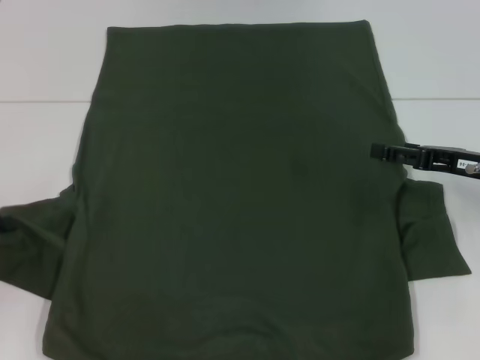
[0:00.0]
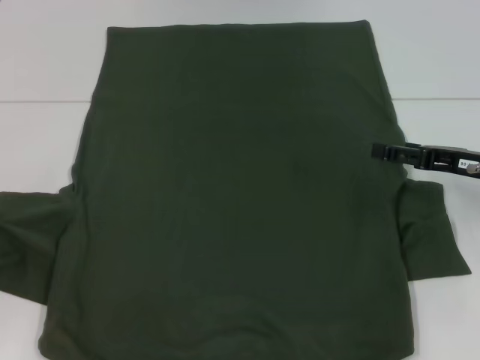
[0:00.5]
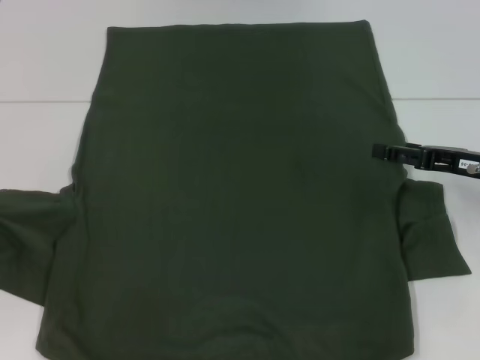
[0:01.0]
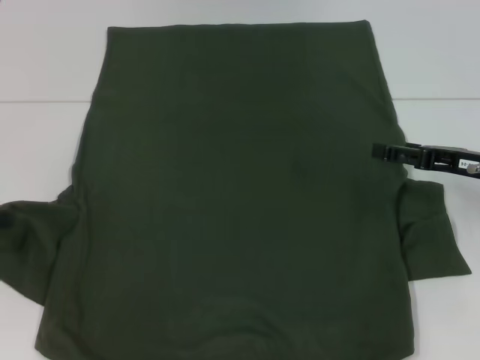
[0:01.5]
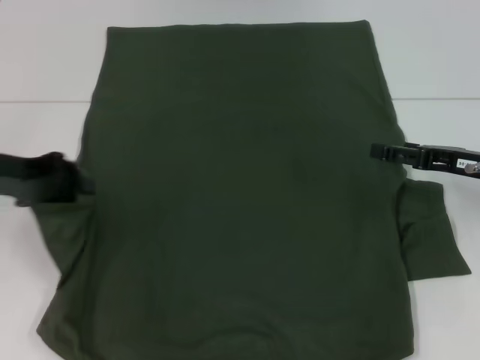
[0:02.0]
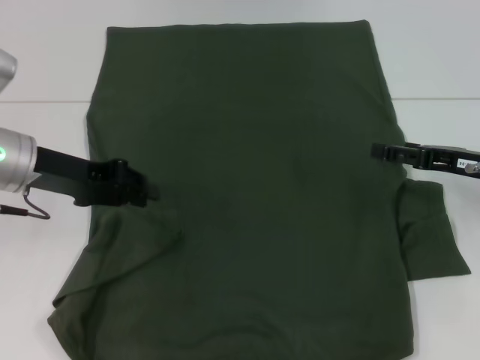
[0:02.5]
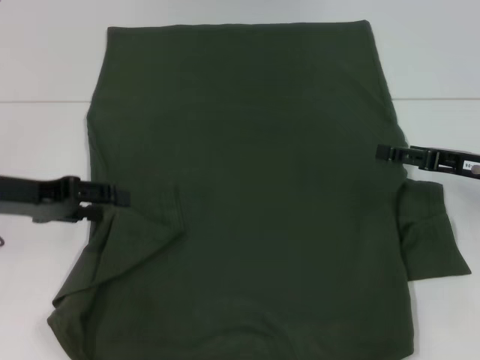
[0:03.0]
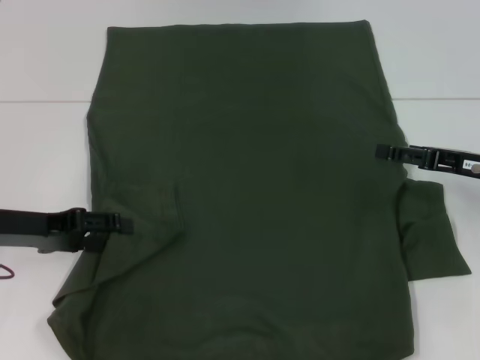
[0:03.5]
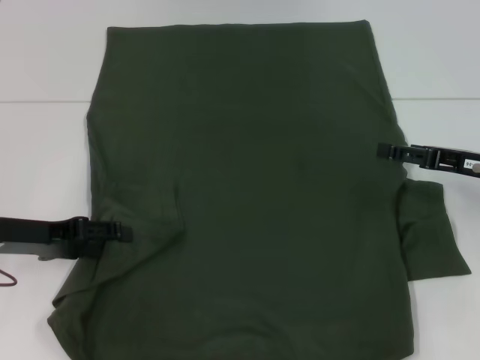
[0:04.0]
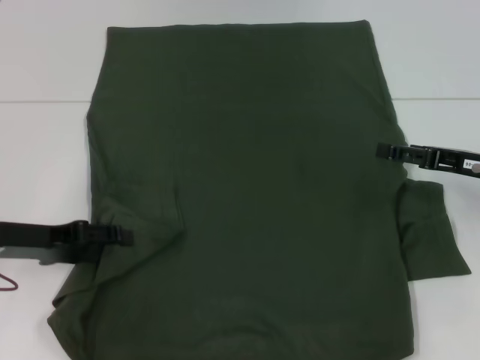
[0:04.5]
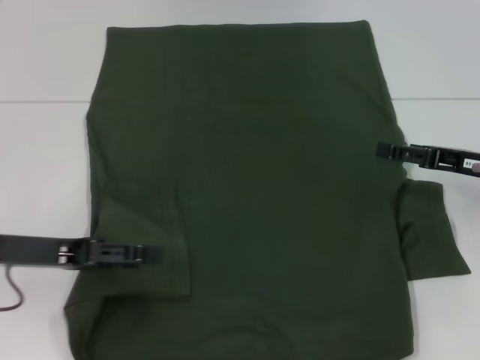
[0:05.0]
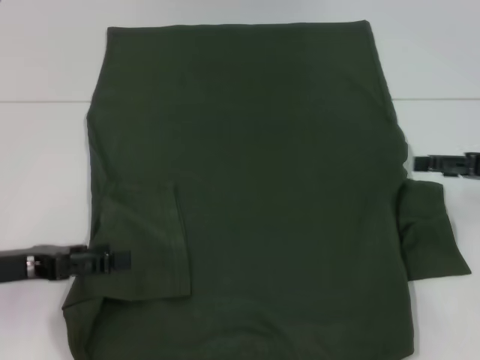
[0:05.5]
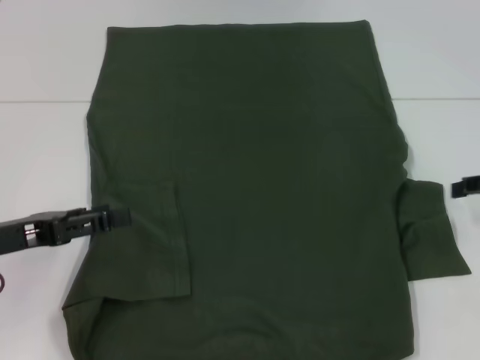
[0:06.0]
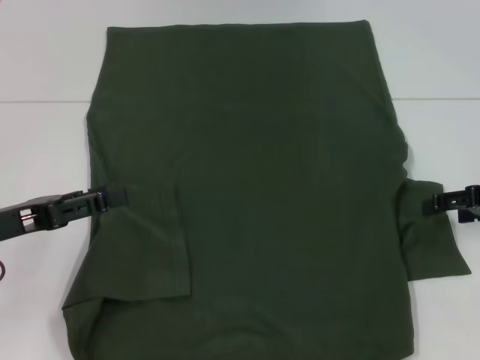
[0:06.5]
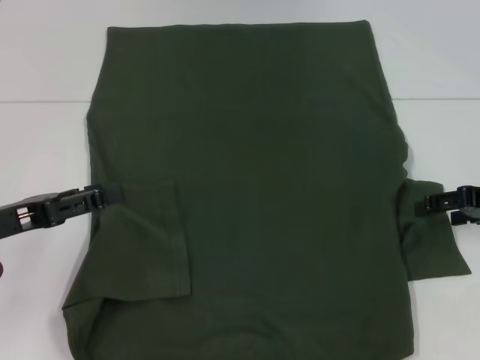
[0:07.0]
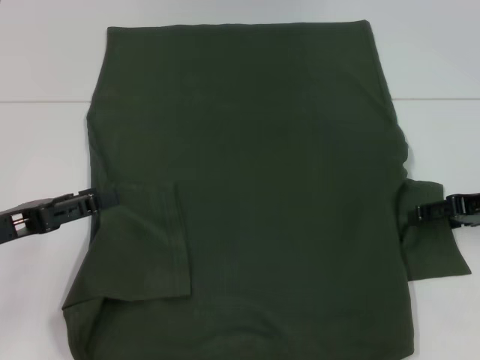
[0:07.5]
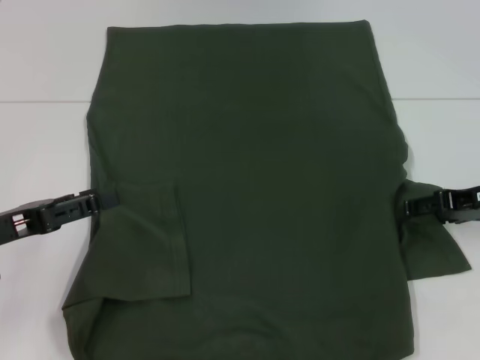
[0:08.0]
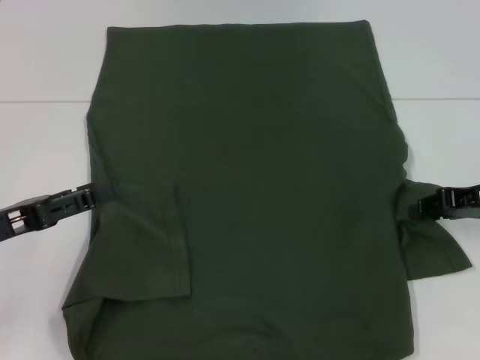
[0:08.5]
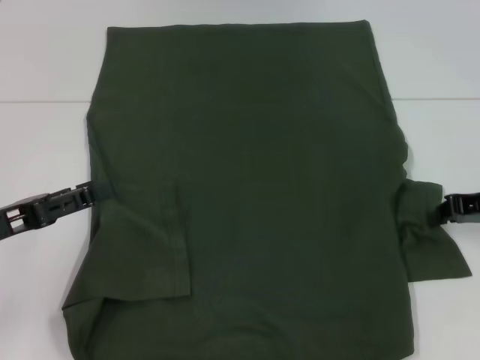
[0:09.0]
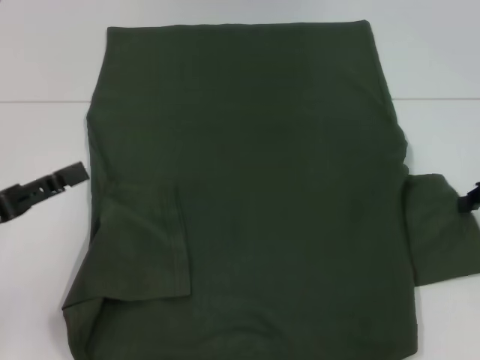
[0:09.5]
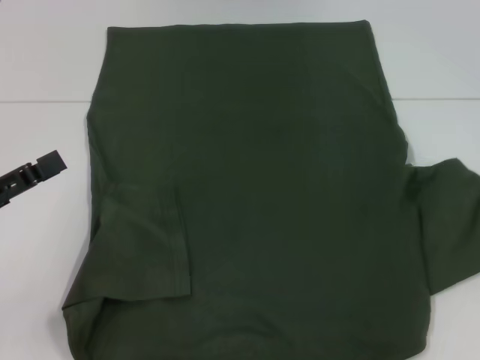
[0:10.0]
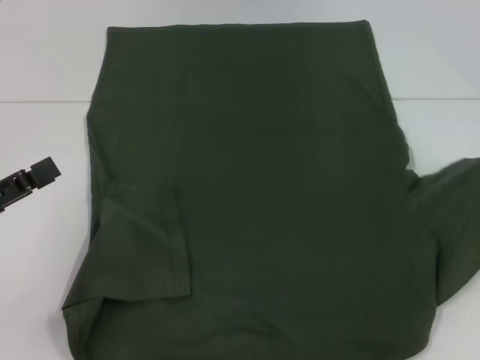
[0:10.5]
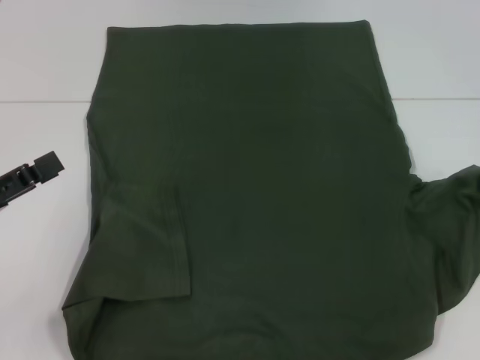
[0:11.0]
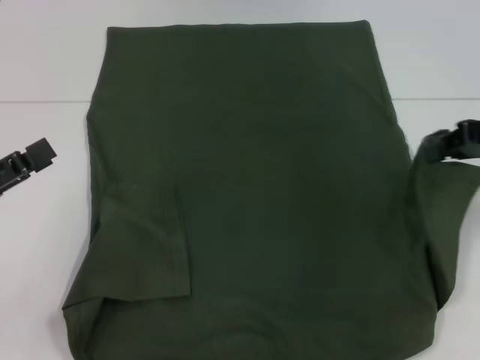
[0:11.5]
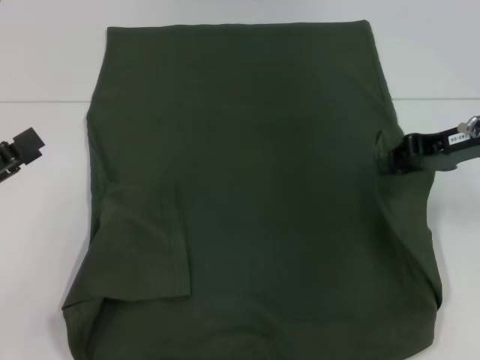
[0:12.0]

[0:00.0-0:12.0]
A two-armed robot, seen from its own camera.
Step, 0:00.0 to 0:05.0: Fold the bottom left sleeve with your left hand.
0:00.0 to 0:02.0: The left gripper goes about 10 cm upward, to the right and forward.
0:02.0 to 0:04.0: The left gripper heads downward, covering about 5 cm, and opens.
0:04.0 to 0:06.0: The right gripper is displaced to the right by some 5 cm.
0:06.0 to 0:08.0: The right gripper heads to the left, covering about 5 cm.
0:08.0 to 0:10.0: The right gripper travels to the right by about 5 cm, and closes.
0:10.0 to 0:12.0: The right gripper shifts some 10 cm to the left.

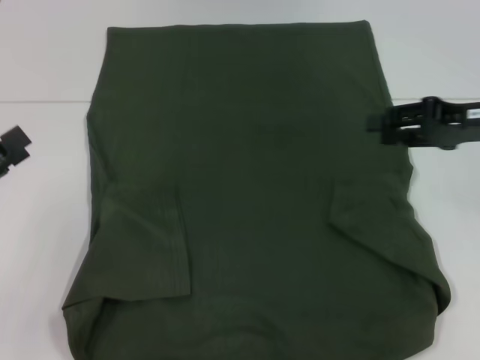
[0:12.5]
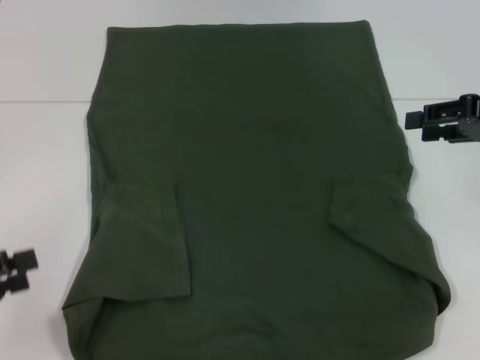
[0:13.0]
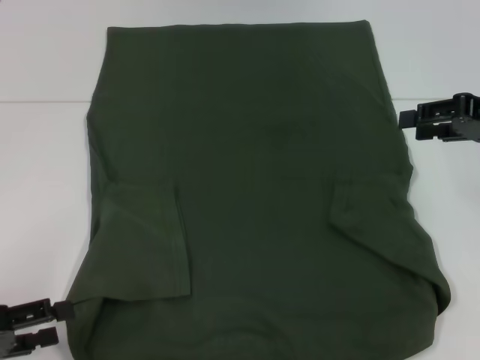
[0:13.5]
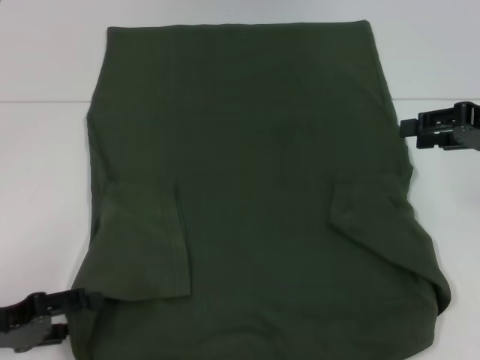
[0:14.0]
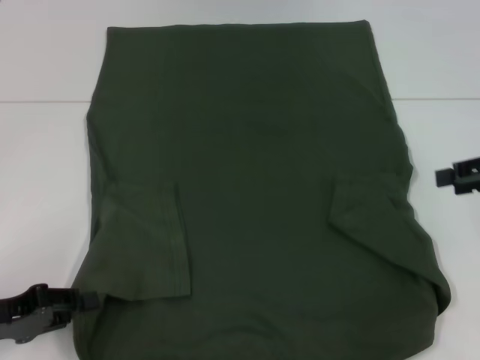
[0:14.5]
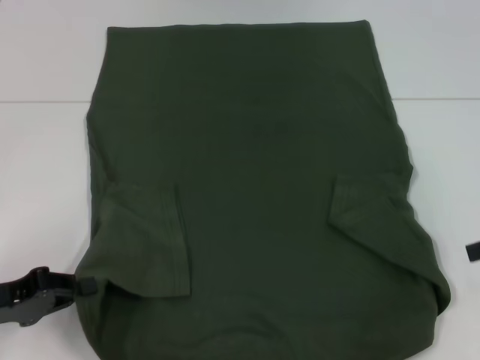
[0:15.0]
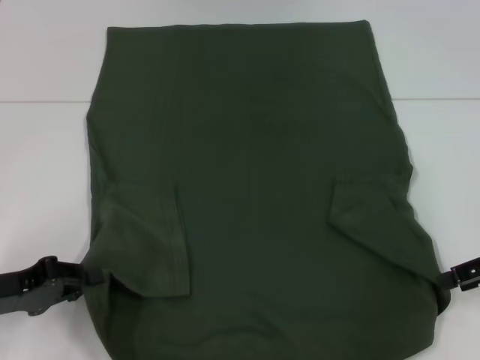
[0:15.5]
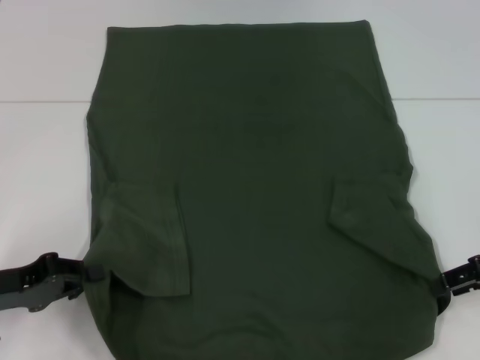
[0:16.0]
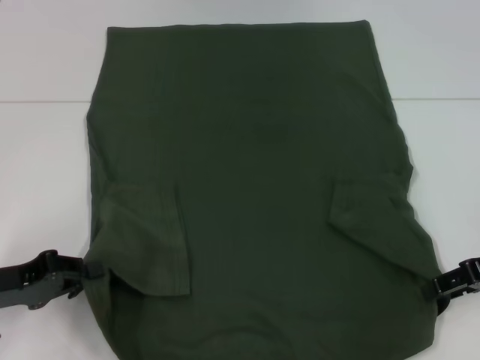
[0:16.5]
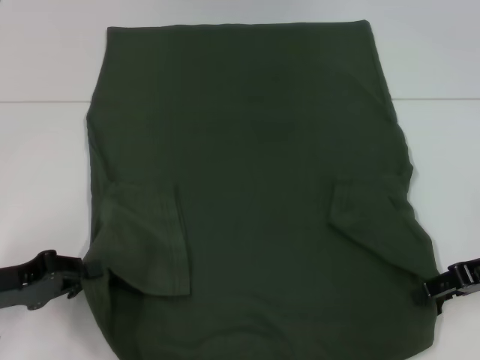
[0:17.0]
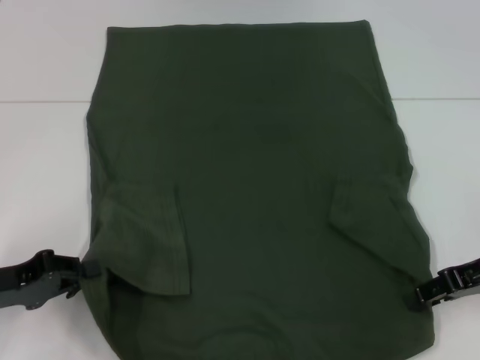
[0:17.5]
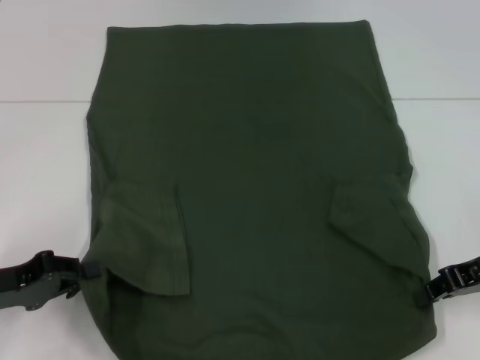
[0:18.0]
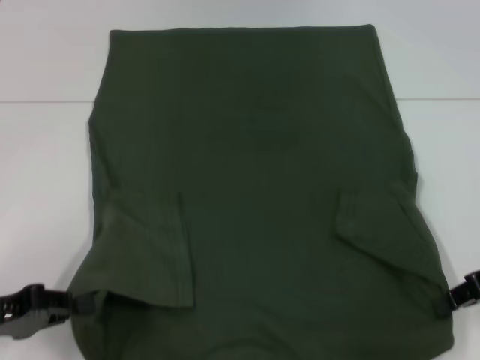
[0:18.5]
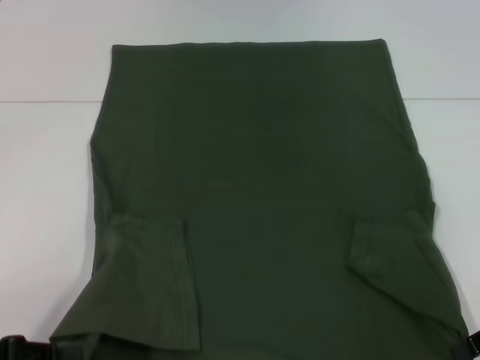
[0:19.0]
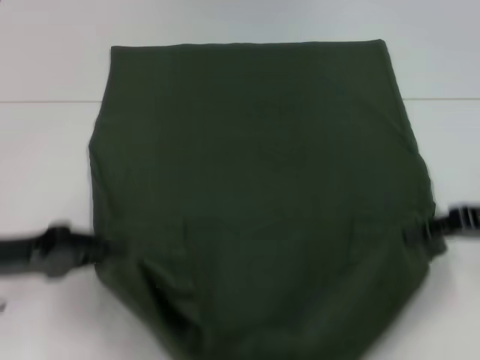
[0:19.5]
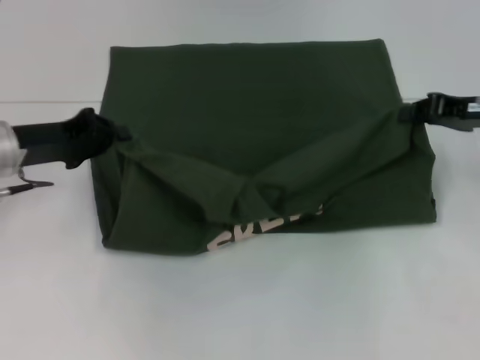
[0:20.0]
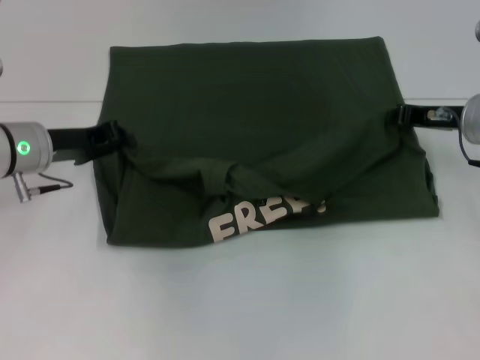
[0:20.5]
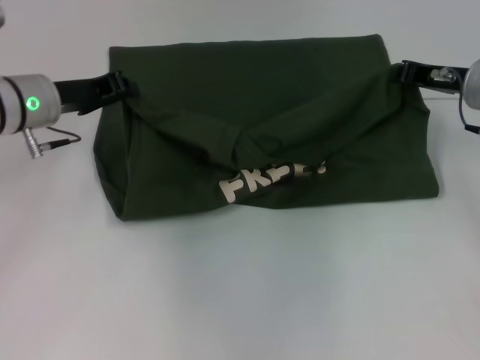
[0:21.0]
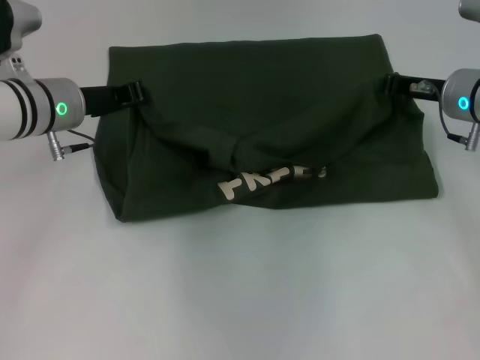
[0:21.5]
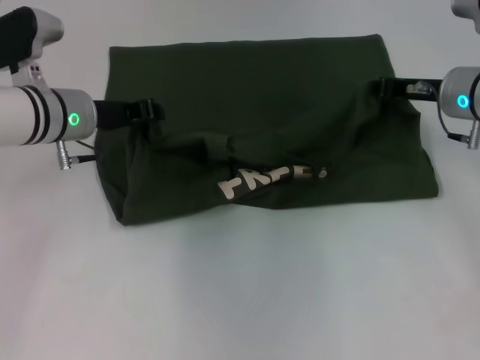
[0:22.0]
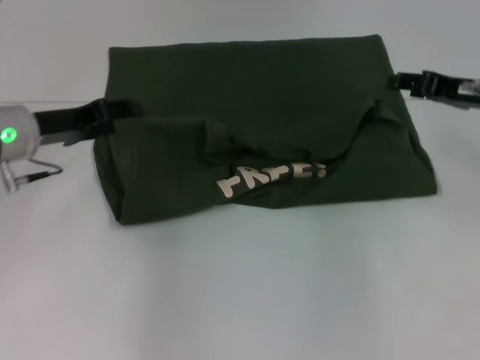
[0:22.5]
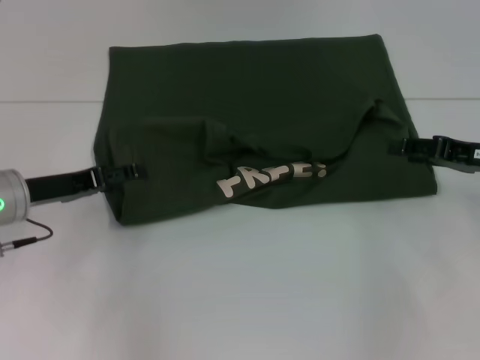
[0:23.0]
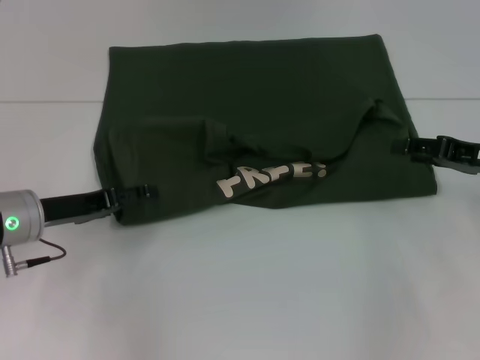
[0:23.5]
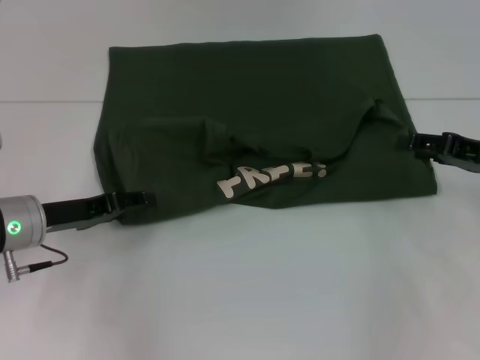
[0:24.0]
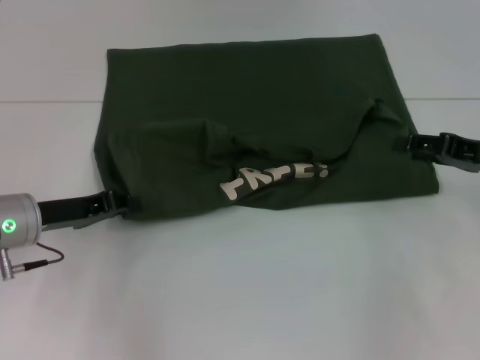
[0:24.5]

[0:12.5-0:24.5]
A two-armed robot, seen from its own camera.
Step, 0:13.0 to 0:15.0: Grab the bottom left corner with your left hand.
Step, 0:15.5 to 0:18.5: Grab the bottom right corner with your right hand.
Step, 0:19.0 to 0:22.0: Fold the clothes with your left hand.
Step, 0:19.0 to 0:22.0: Fold the clothes with your right hand.
0:12.5 to 0:14.5: The left gripper moves downward, approximately 5 cm. Meanwhile the right gripper moves to the right, about 5 cm, and opens up.
0:14.5 to 0:16.5: The left gripper closes up. The right gripper heads downward, covering some 5 cm.
0:16.5 to 0:18.5: The right gripper closes.
0:18.5 to 0:20.5: The left gripper is displaced forward and to the right by some 20 cm. The right gripper goes some 15 cm forward and to the left.
0:20.5 to 0:22.5: The right gripper opens, while the left gripper opens.
0:22.5 to 0:24.5: The right gripper goes some 5 cm backward, while the left gripper travels downward and backward by approximately 10 cm, and opens, then closes again.

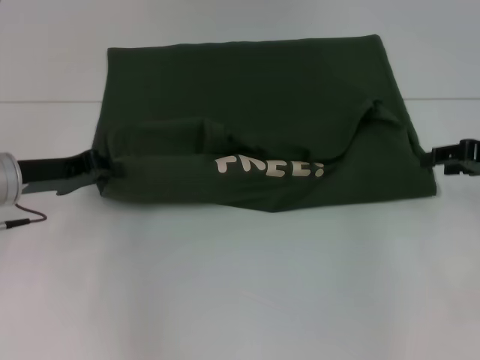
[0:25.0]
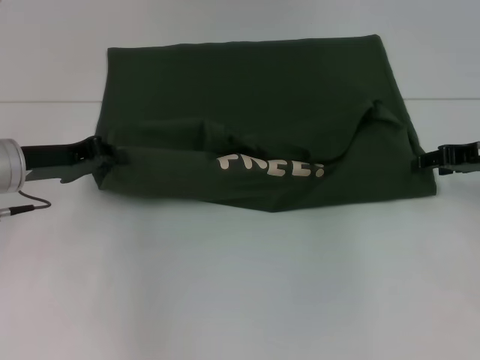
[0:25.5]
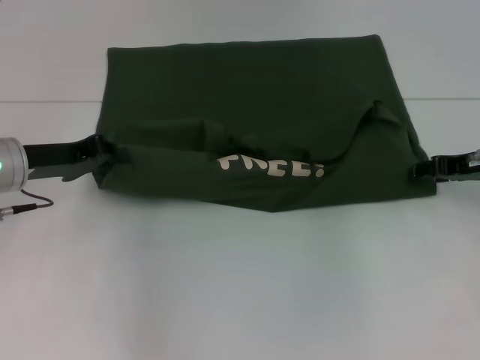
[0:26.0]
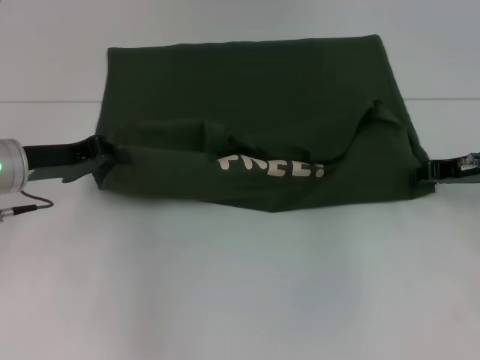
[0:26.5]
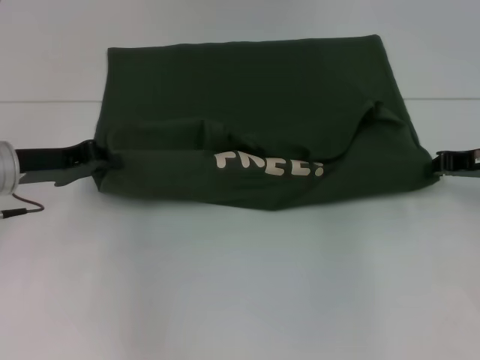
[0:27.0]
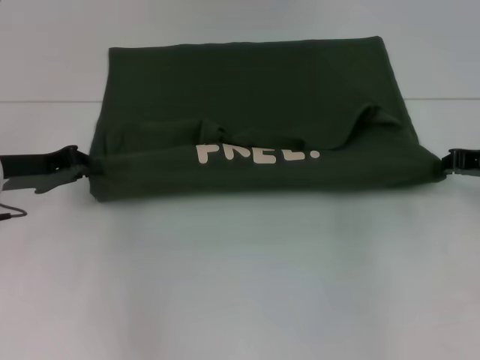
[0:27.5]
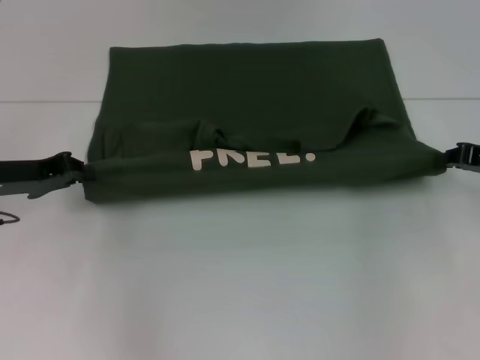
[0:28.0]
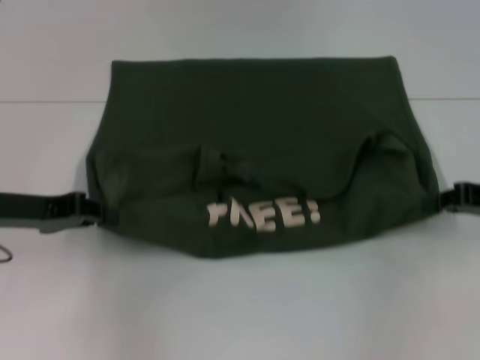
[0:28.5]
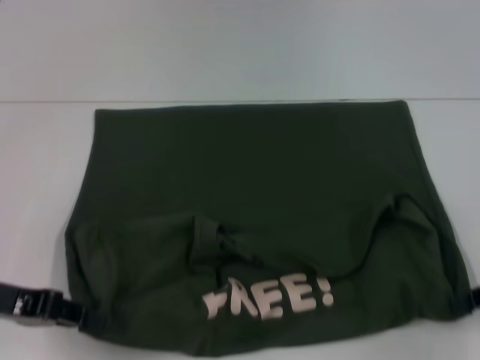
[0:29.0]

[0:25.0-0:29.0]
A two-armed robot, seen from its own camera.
0:25.0 to 0:27.0: The right gripper closes.
0:27.0 to 0:29.0: Both grippers travel together backward, some 10 cm.
